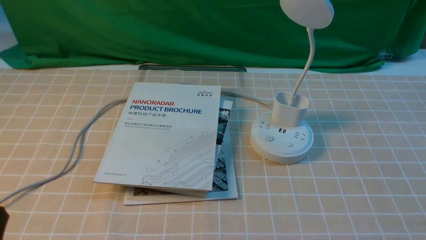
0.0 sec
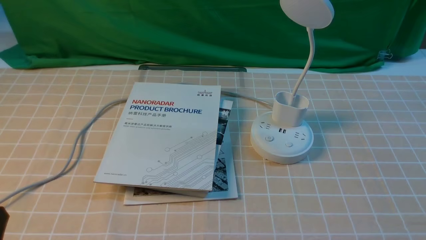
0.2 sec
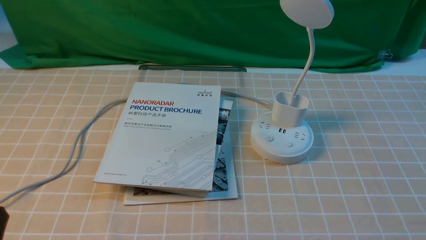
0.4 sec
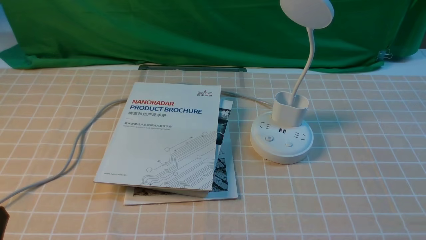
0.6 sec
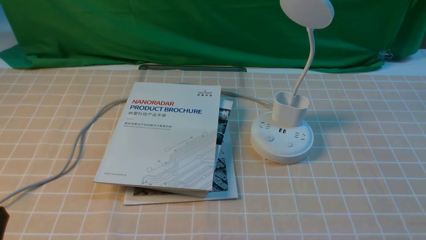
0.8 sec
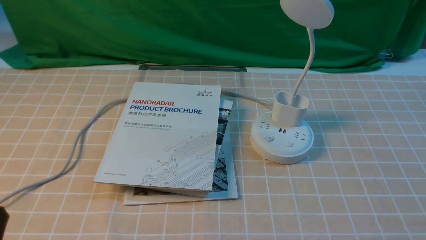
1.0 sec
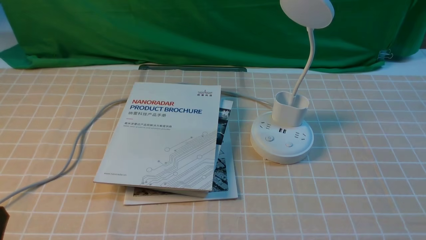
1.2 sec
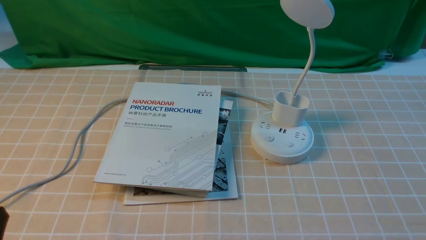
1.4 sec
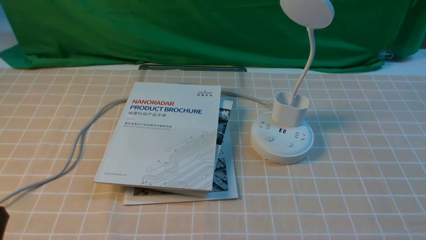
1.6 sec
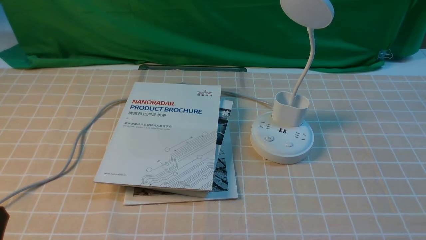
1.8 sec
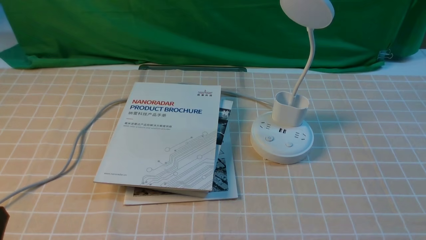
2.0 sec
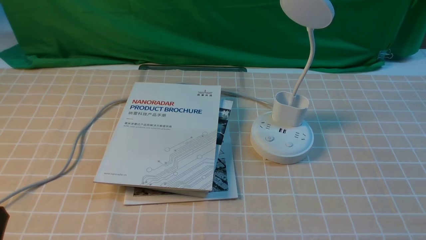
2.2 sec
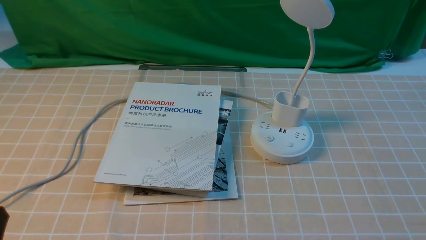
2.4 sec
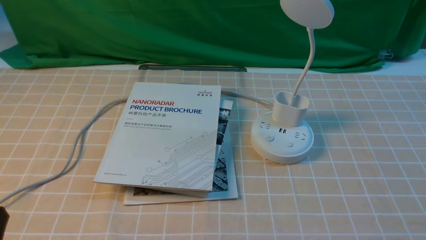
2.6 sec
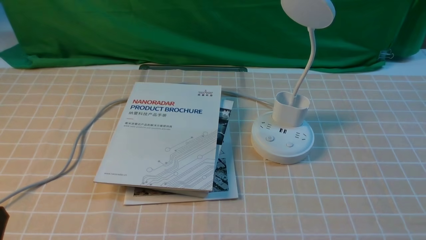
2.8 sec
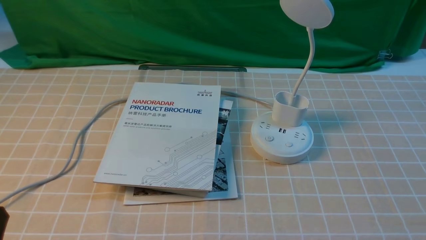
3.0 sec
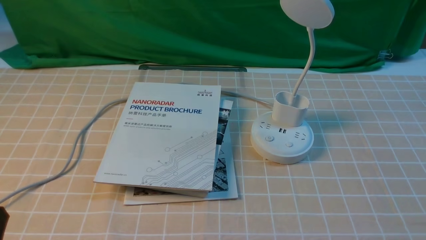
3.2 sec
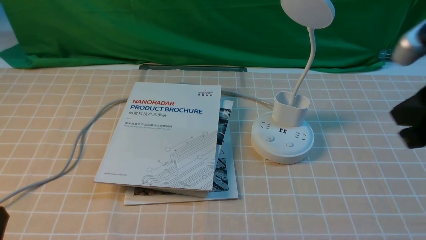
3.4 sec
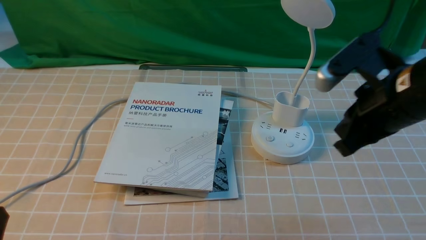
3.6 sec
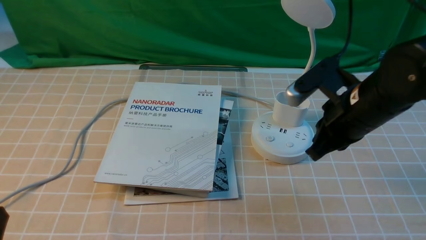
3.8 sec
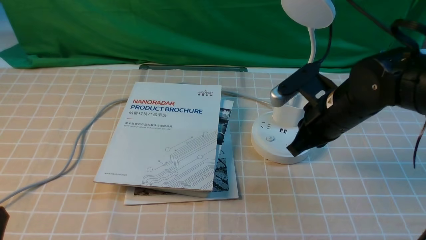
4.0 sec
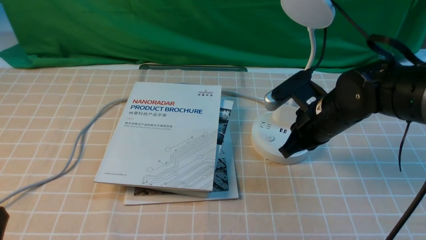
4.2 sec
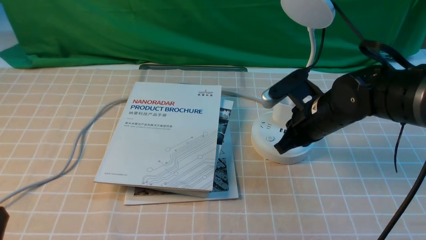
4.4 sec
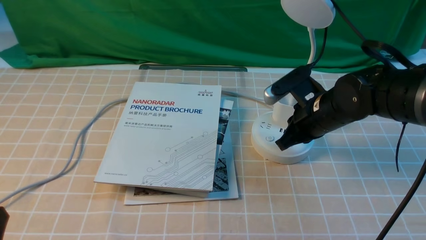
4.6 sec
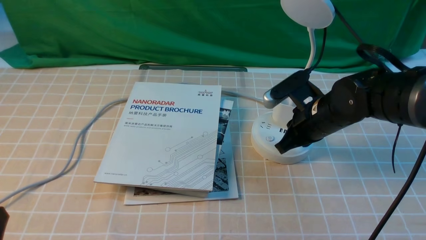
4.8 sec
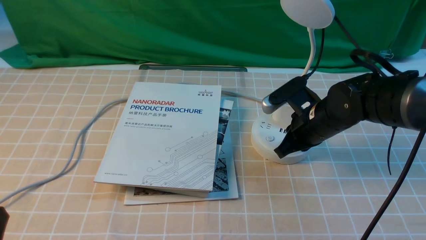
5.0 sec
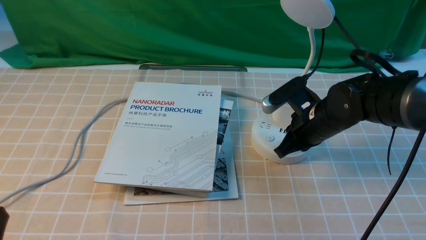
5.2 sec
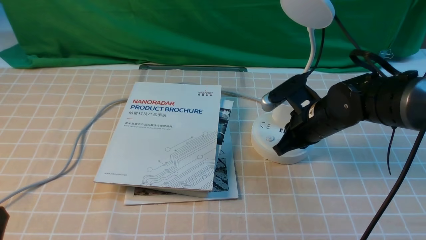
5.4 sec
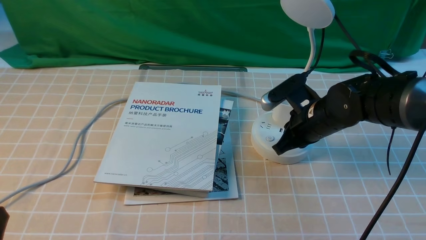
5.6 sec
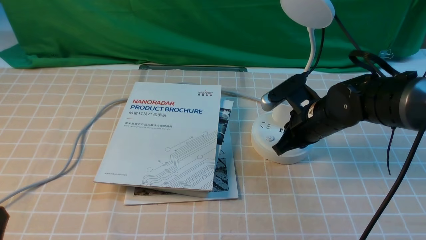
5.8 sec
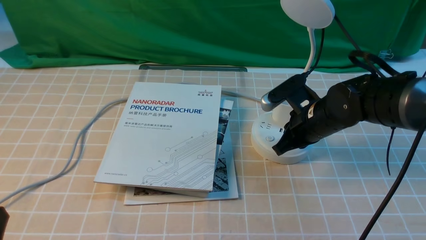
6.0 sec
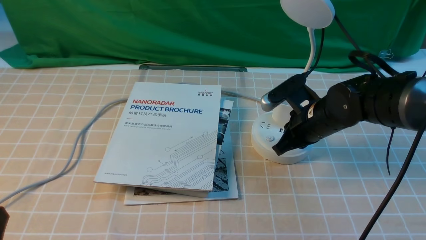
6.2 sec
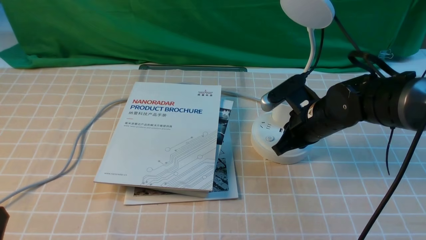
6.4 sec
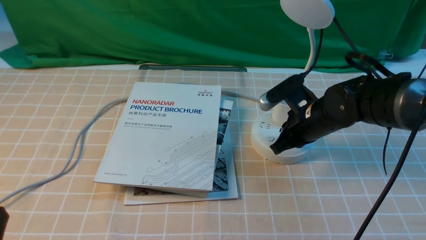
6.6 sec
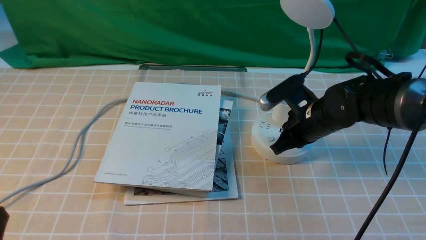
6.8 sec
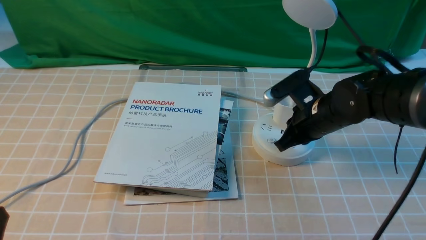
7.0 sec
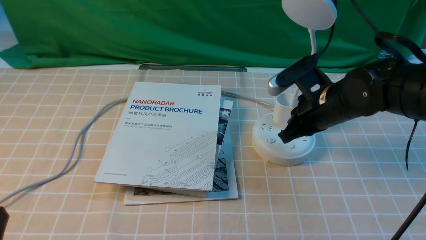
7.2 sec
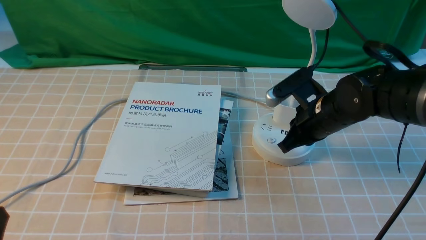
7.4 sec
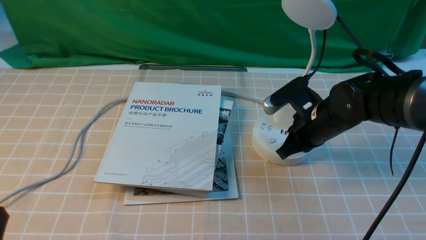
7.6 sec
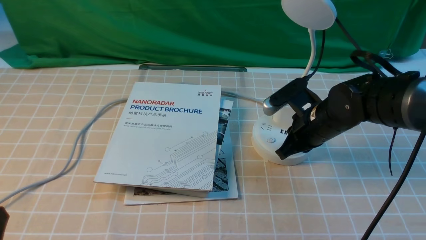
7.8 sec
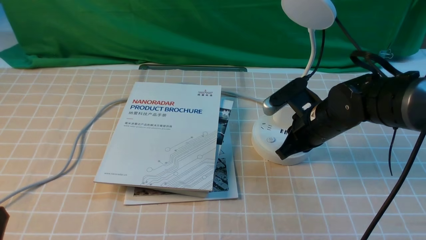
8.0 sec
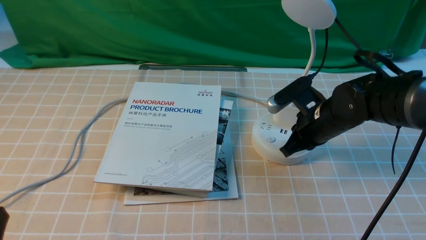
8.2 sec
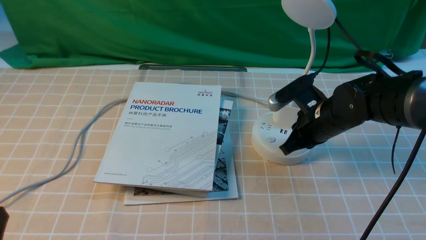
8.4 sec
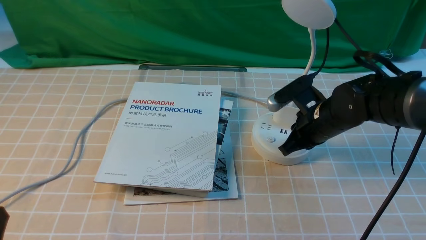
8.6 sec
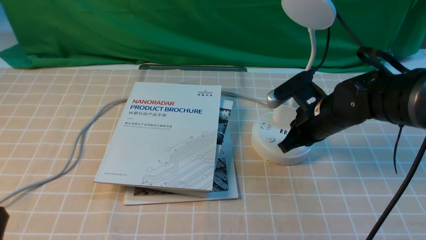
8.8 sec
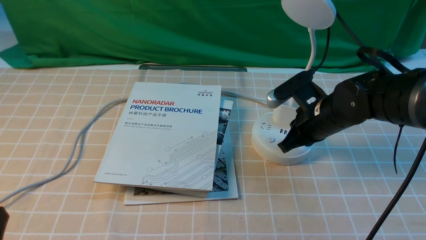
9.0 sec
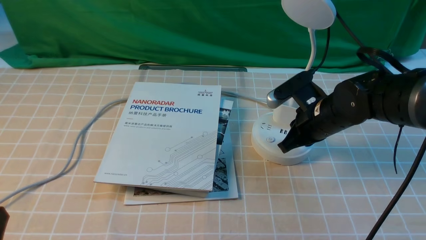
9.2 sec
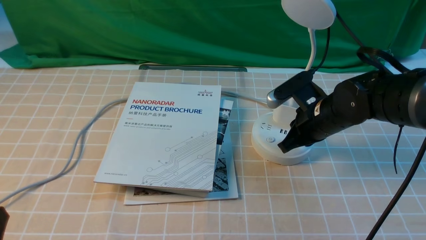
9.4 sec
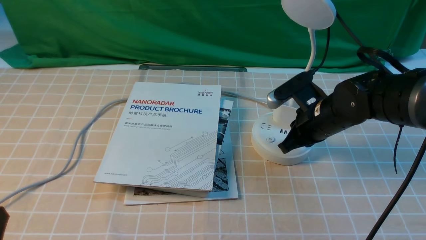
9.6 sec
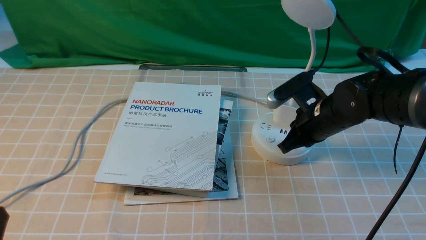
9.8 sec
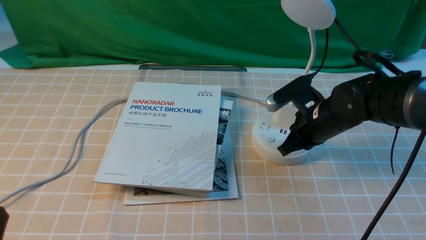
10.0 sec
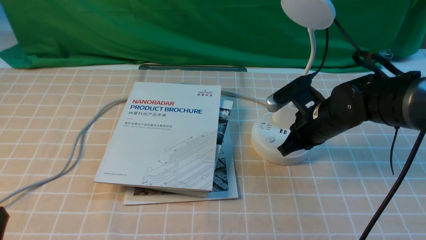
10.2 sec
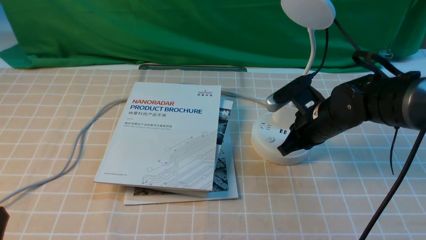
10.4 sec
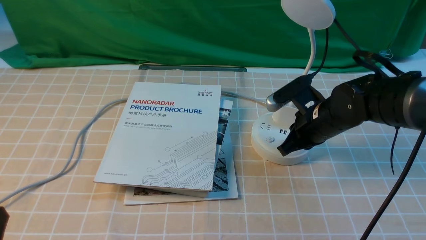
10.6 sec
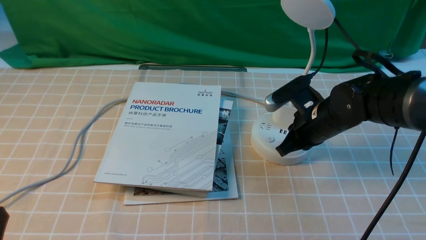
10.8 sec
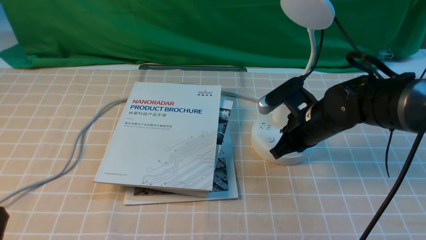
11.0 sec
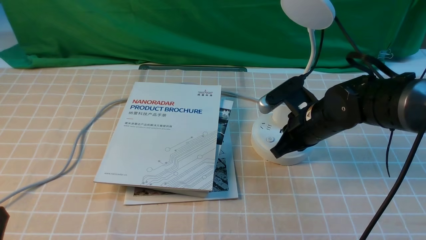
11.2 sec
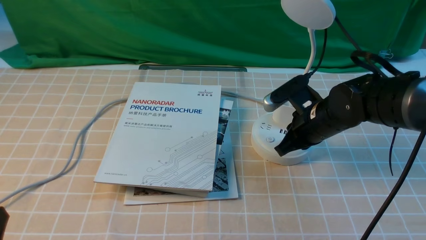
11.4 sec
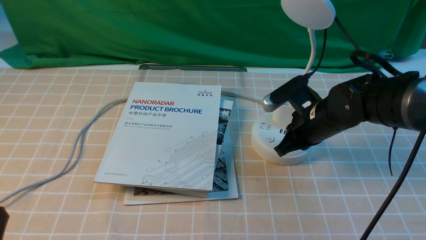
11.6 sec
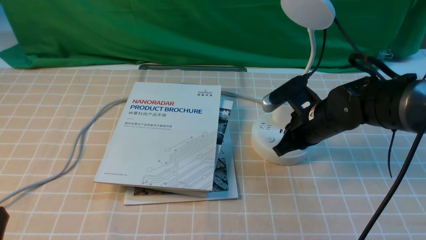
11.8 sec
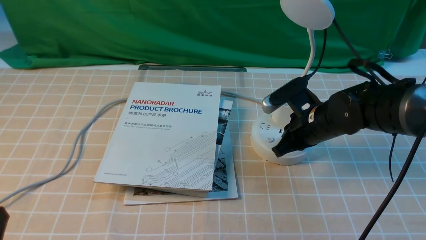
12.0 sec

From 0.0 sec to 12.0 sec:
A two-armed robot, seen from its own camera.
From 0.0 sec to 1.6 sec: The two grippers keep their place.
From 3.0 sec to 4.4 sec: The right gripper heads forward, downward and to the left, covering some 35 cm.
From 4.4 sec to 7.6 sec: The grippers stay close to where they were, moving slightly.
From 7.6 sec to 10.4 sec: Neither gripper changes place.
From 10.4 sec to 12.0 sec: The two grippers keep their place.

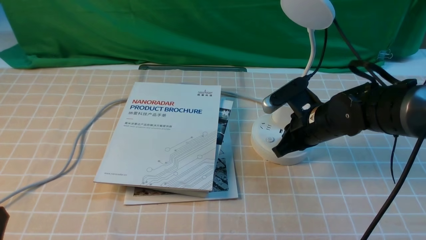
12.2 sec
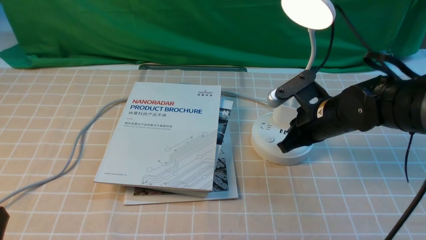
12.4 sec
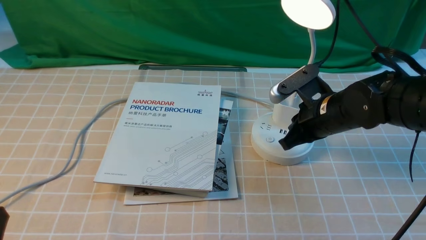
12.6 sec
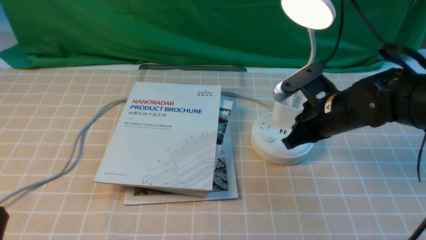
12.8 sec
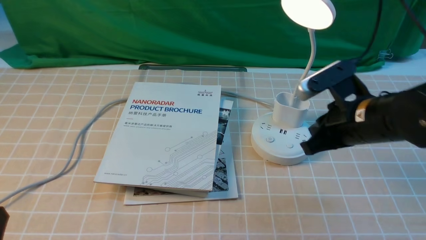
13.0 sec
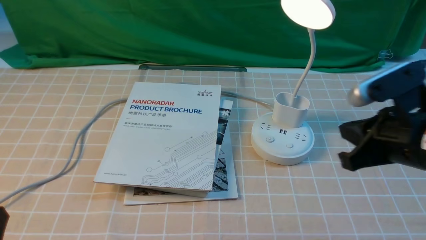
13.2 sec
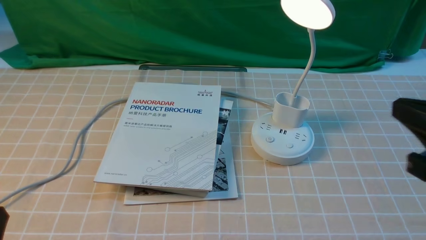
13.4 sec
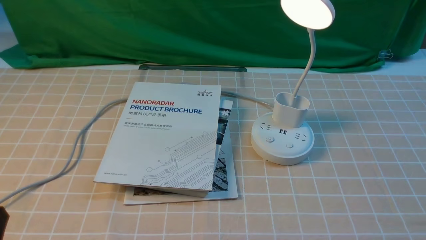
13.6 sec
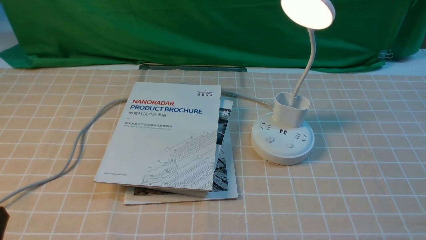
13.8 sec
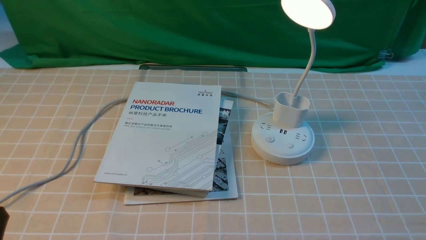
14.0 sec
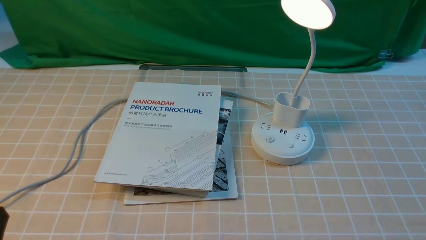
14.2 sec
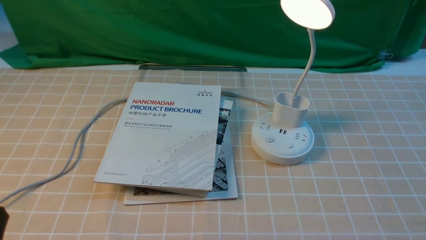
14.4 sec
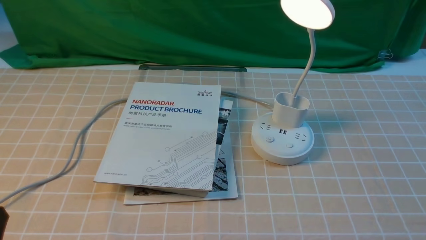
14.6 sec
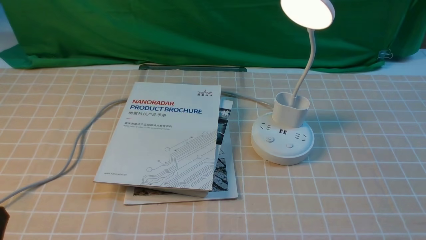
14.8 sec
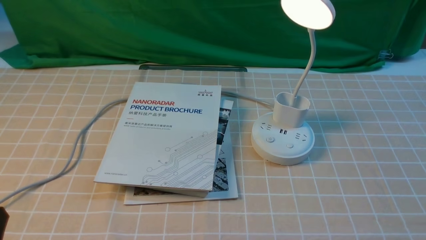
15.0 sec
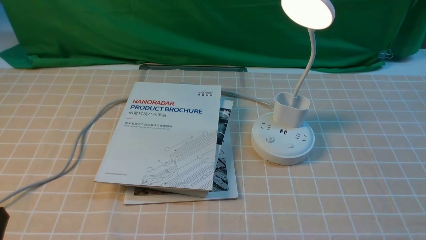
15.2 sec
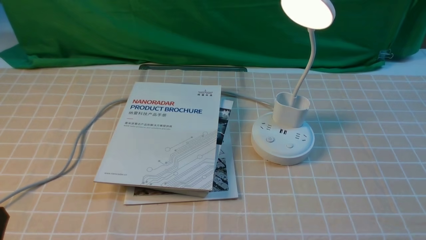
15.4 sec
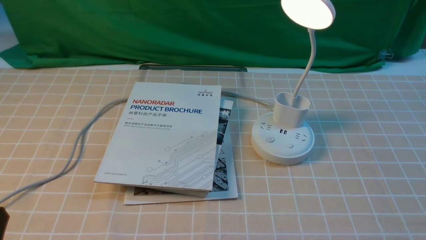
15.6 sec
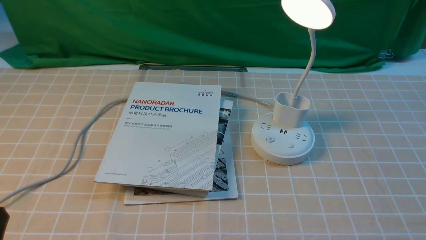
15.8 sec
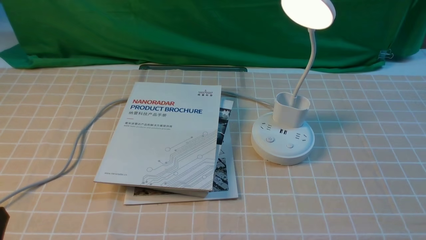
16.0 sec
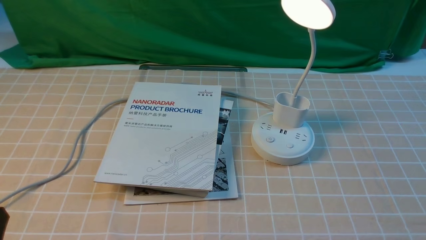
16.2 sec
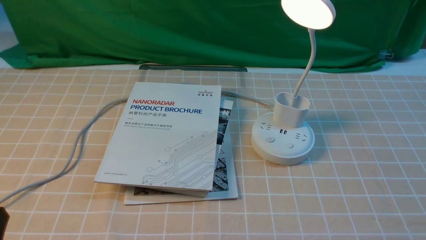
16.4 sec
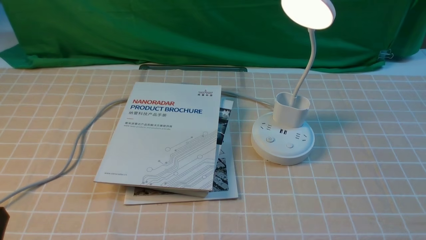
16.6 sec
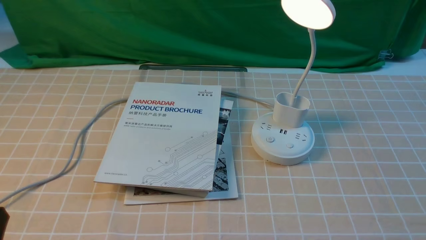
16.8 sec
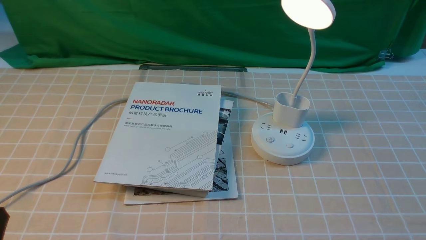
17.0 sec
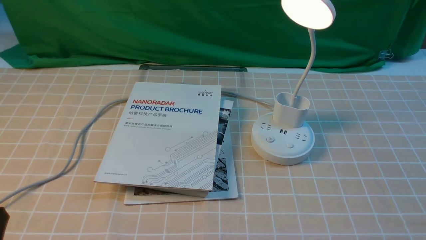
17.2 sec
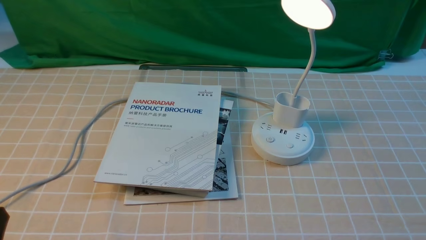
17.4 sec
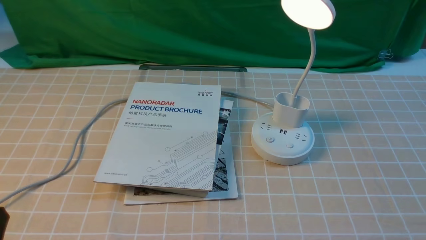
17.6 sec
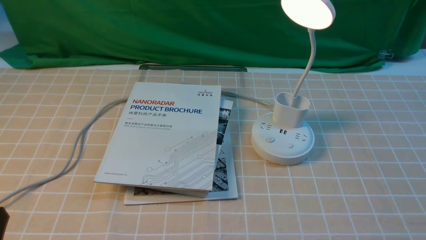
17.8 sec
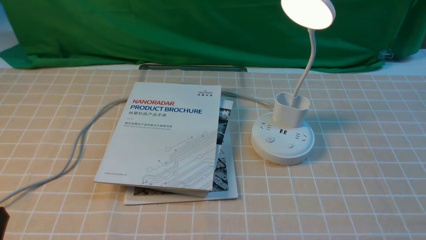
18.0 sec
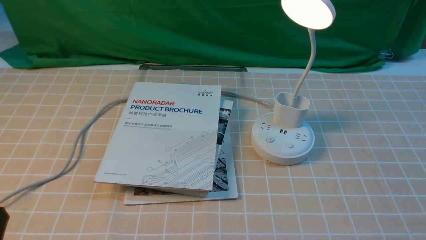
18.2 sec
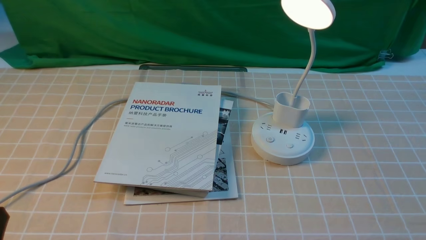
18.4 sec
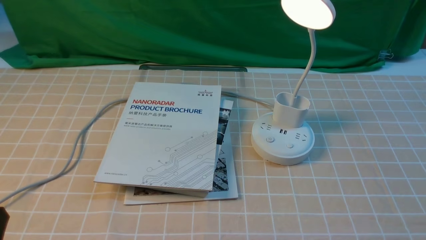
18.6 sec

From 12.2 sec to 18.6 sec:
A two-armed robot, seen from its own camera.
From 12.2 sec to 13.8 sec: The right gripper is displaced backward, upward and to the right by some 35 cm.
